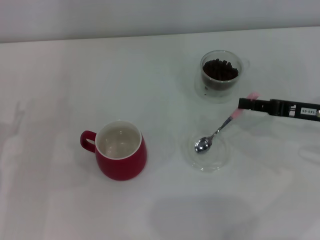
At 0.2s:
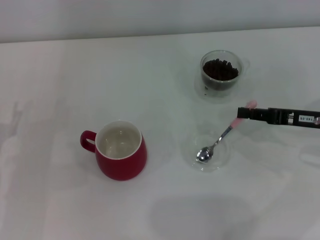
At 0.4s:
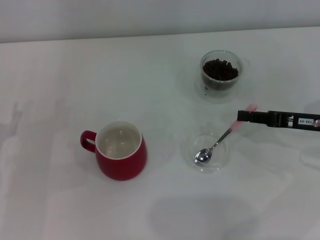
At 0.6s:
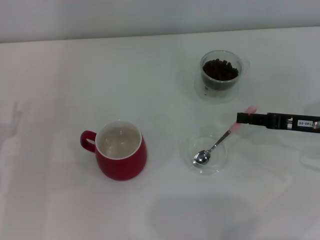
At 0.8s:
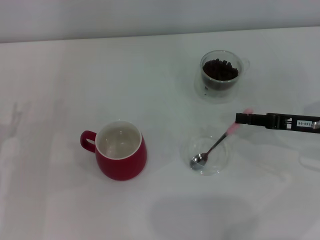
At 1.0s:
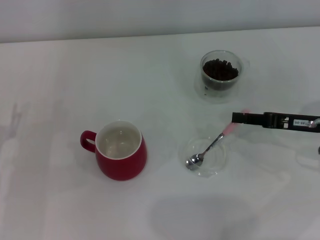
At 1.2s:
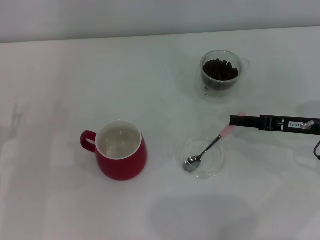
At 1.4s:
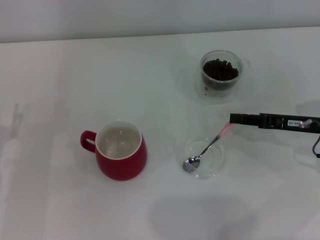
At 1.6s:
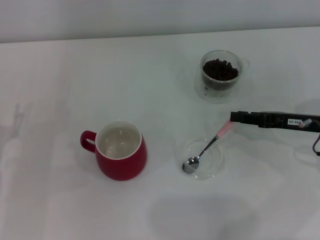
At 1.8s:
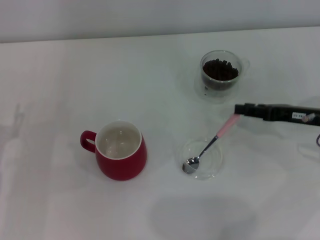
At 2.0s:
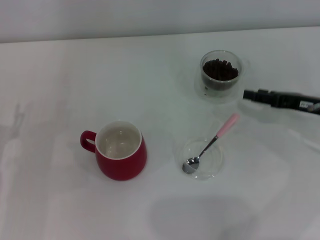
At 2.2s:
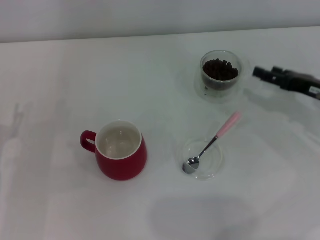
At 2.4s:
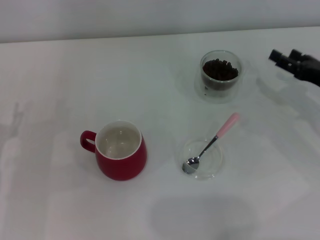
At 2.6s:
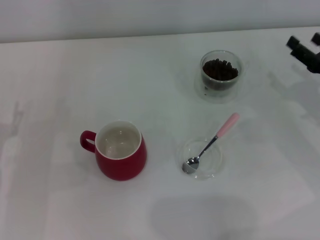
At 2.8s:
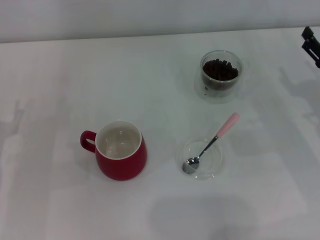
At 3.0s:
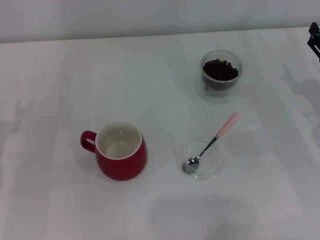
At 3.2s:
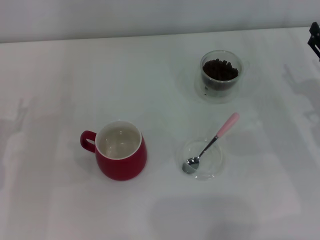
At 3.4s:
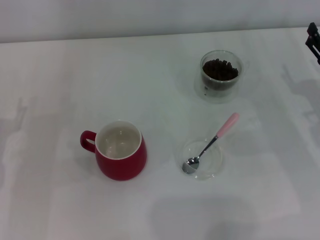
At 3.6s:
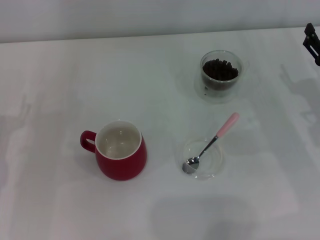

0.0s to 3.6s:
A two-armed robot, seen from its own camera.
Task of the whole recording: Use a pink spoon to take out the coffee beans from the glass and pour them into the red cup.
Step, 0.0s to 1.8s: Place the spoon back in its original place with the right gripper.
0.0s to 1.8s: The grippers move only a little.
1.8s to 3.6s: The right gripper opens its fingers.

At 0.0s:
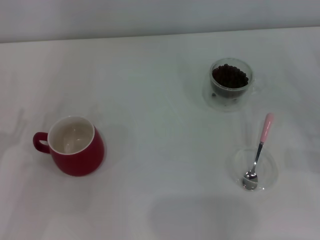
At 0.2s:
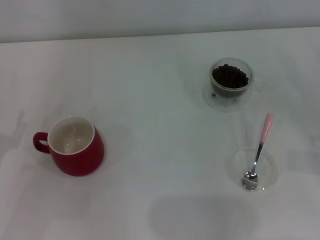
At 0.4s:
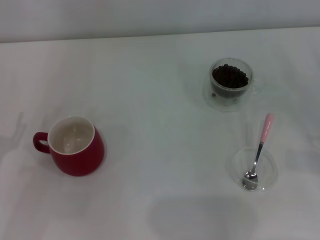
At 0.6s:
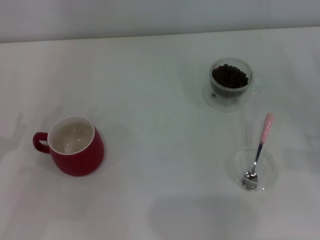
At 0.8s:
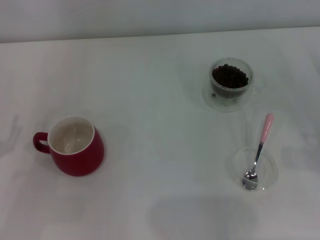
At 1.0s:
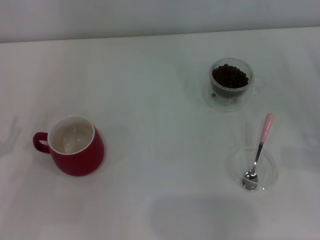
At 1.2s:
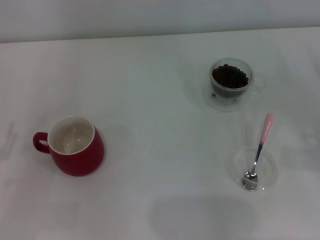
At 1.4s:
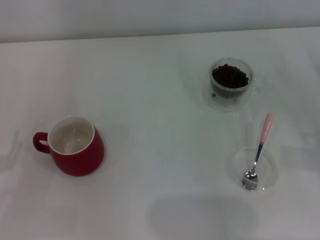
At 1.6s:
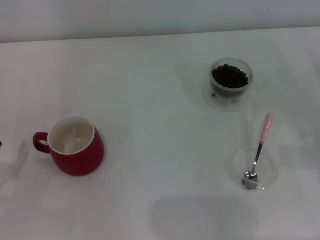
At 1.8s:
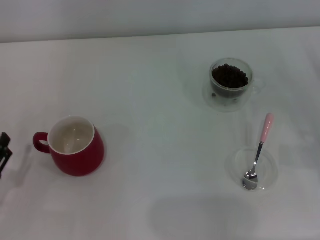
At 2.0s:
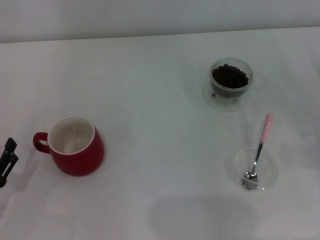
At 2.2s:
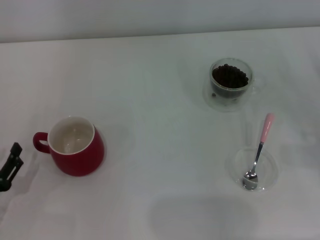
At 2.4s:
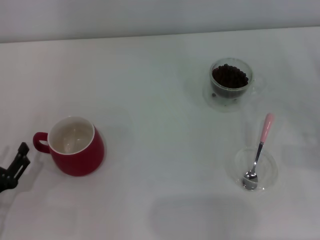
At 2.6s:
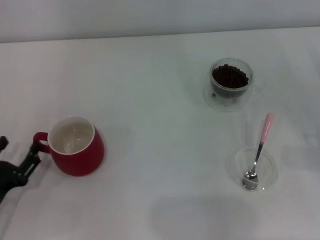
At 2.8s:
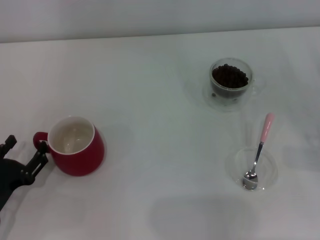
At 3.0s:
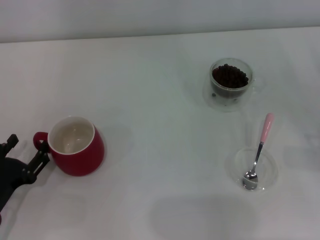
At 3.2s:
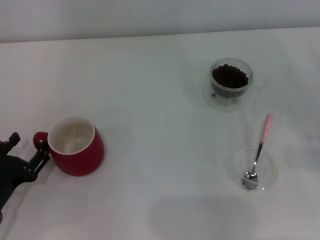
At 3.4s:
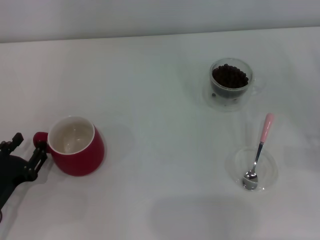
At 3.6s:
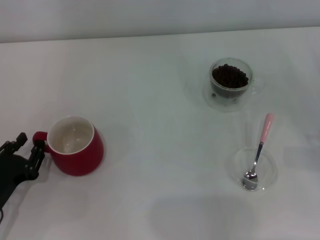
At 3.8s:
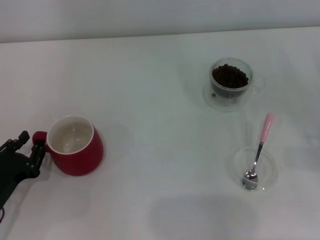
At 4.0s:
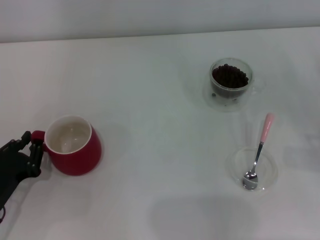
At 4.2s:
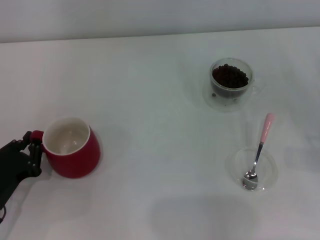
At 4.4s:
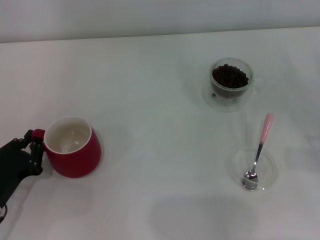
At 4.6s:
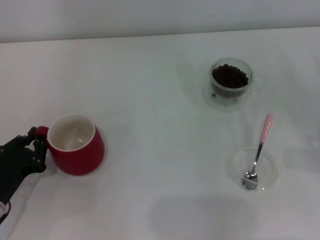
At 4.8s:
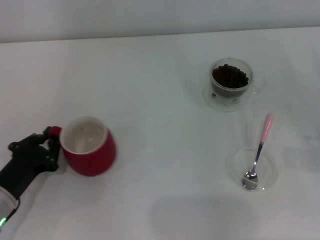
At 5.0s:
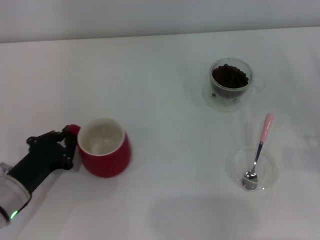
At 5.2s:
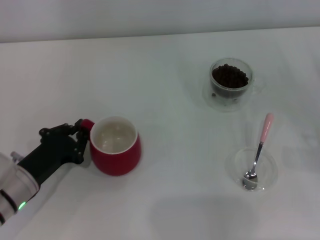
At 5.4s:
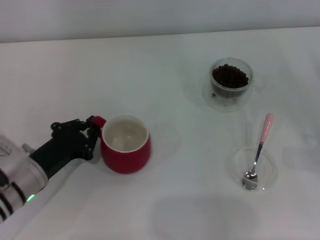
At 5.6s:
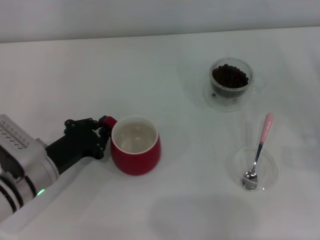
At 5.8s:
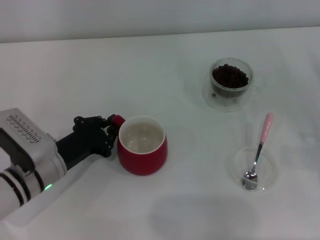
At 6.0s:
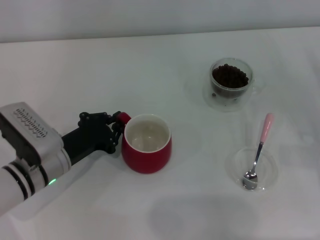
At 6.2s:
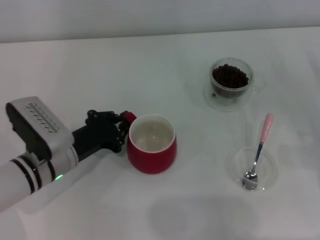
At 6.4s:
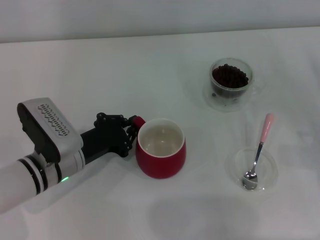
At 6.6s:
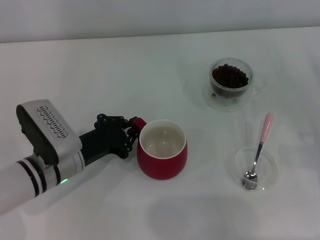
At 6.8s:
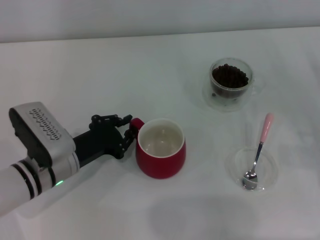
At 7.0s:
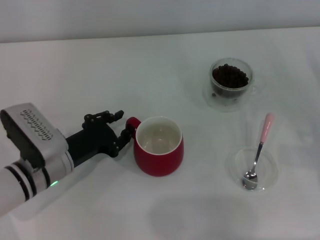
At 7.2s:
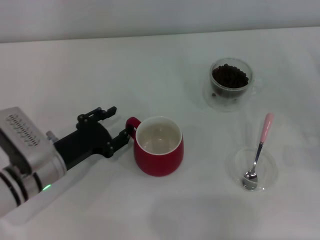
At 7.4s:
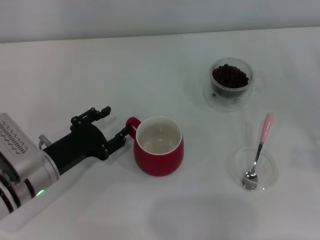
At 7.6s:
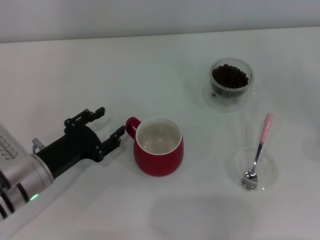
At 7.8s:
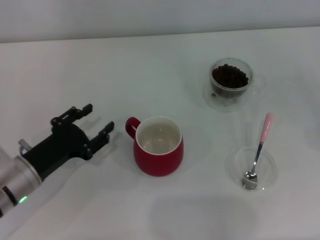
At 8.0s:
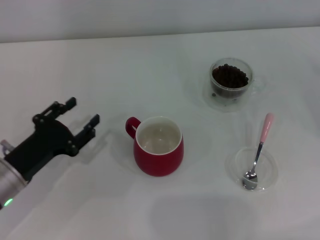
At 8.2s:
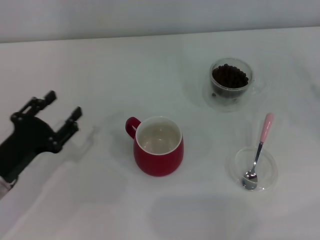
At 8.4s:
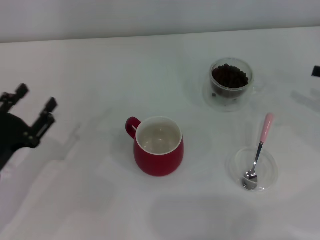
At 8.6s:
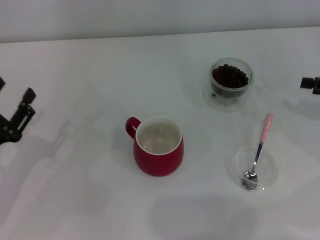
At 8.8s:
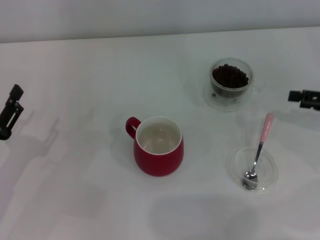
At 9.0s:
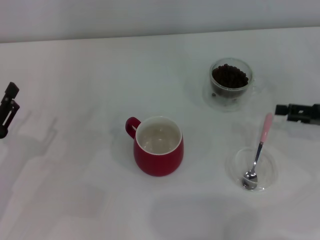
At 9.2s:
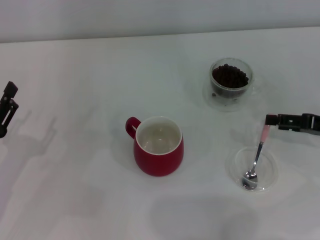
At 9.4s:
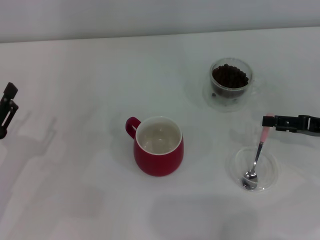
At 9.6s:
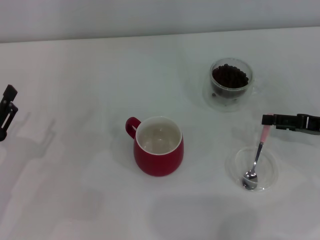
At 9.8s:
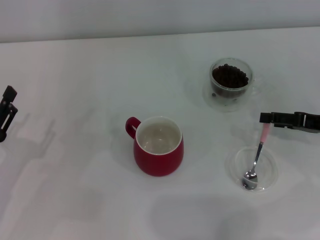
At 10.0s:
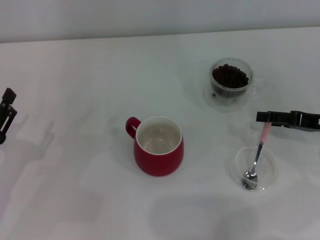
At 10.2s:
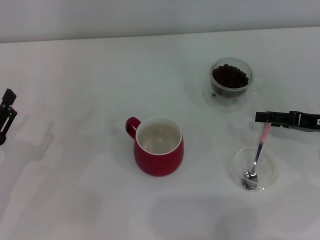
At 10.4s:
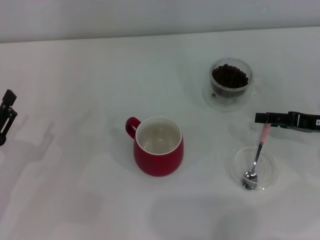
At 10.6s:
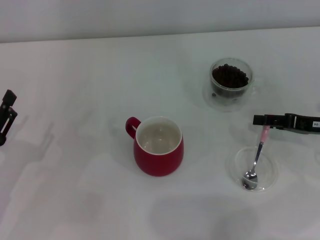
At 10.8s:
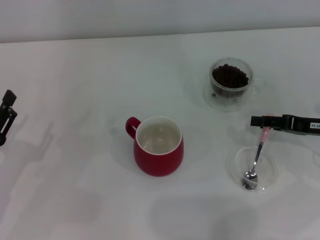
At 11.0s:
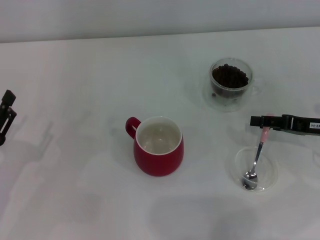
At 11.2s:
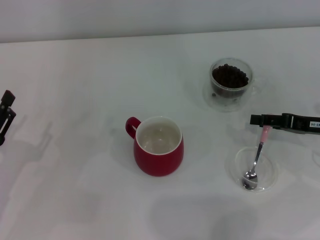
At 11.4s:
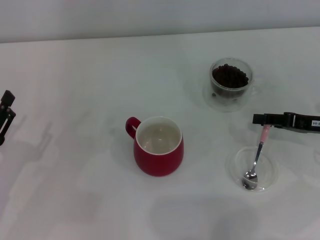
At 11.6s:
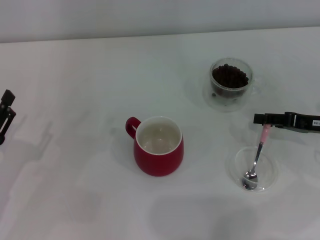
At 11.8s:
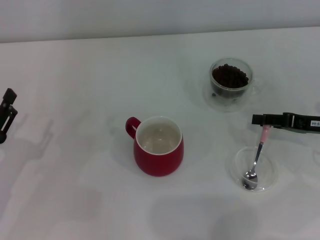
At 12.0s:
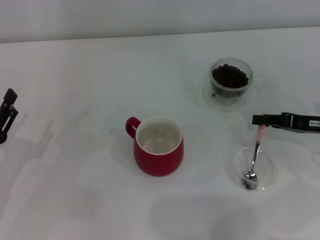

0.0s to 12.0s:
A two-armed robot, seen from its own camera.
Task of the whole recording: Use a pink spoon to take out the coffee beans from the glass and pour them into the red cup.
Step, 0.0s to 8.0s: Move the cup to the center of view with the left gripper.
1.6s to 3.0s: The grippers move only a little.
3.0s to 4.4s: The left gripper closes its fingers.
4.4s to 6.0s: The left gripper moves to the right and forward, some 10 cm.
6.0s to 7.6s: The left gripper opens its fingers.
7.6s to 9.0s: The right gripper shifts by roughly 5 cm, while the left gripper goes about 10 cm to the left.
9.0s to 10.4s: There are only small adjustments of the grippers.
10.4s to 12.0s: The right gripper closes.

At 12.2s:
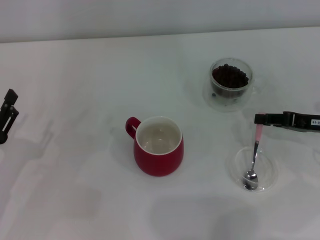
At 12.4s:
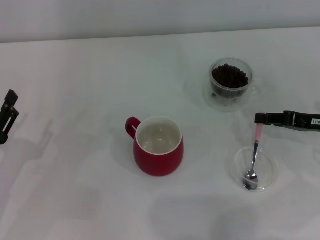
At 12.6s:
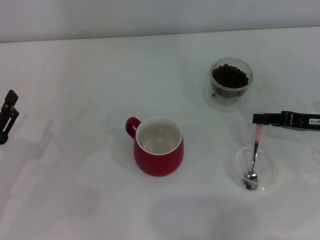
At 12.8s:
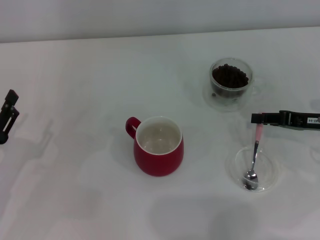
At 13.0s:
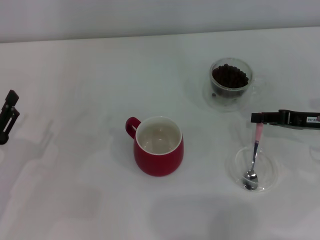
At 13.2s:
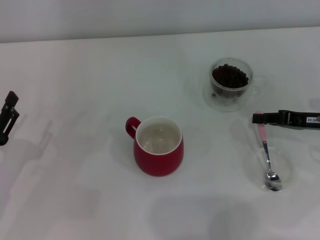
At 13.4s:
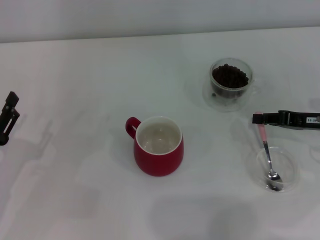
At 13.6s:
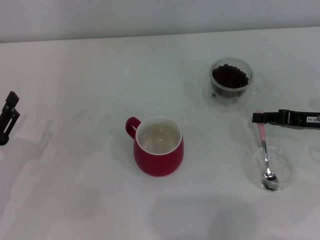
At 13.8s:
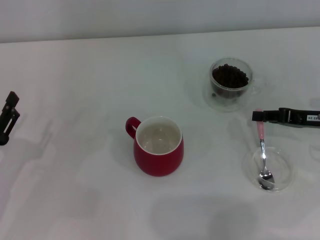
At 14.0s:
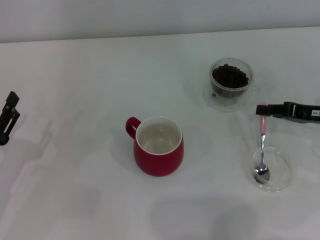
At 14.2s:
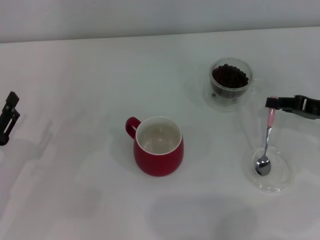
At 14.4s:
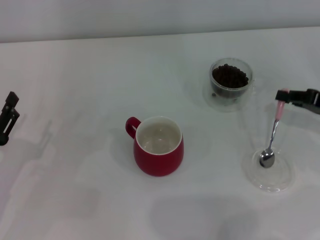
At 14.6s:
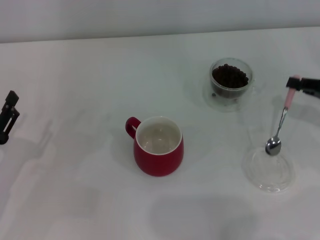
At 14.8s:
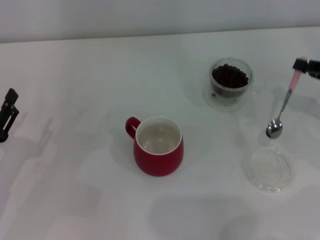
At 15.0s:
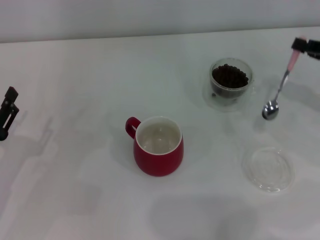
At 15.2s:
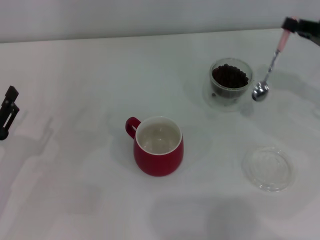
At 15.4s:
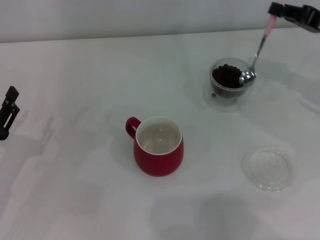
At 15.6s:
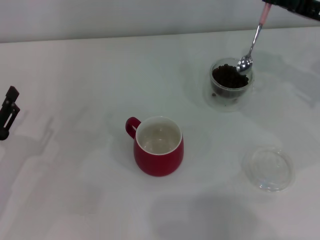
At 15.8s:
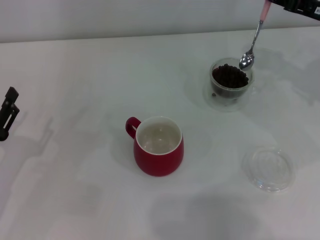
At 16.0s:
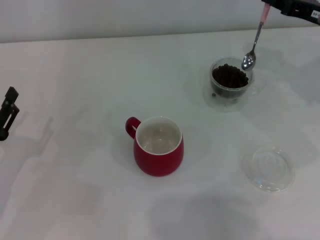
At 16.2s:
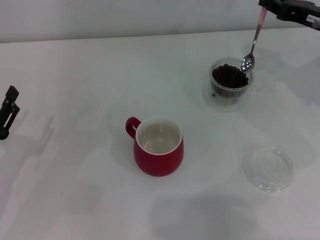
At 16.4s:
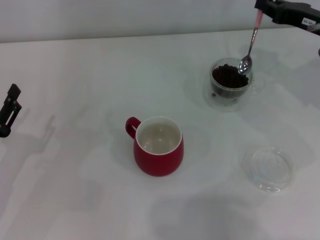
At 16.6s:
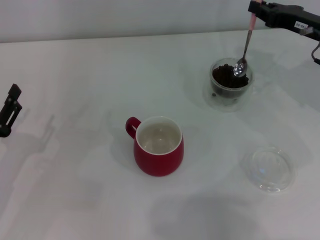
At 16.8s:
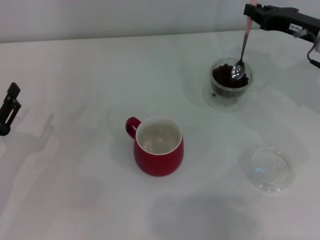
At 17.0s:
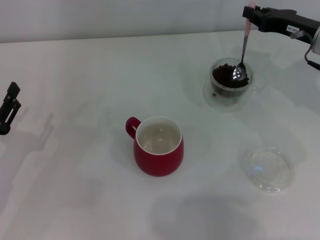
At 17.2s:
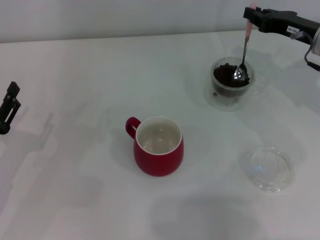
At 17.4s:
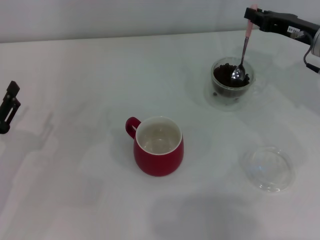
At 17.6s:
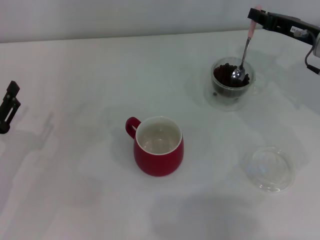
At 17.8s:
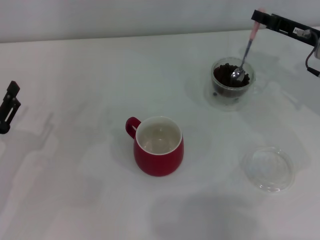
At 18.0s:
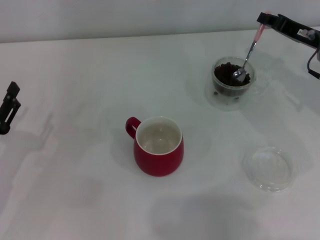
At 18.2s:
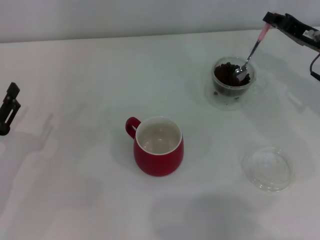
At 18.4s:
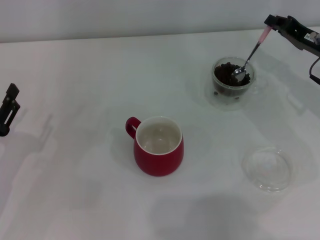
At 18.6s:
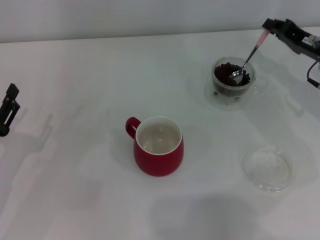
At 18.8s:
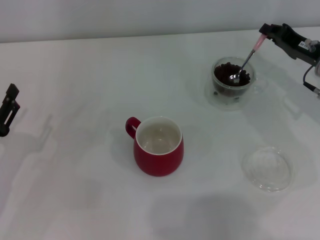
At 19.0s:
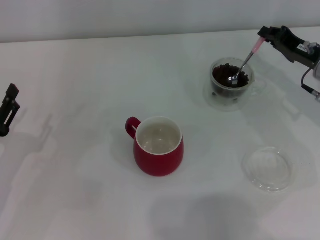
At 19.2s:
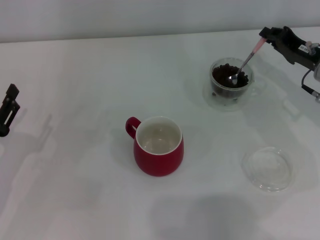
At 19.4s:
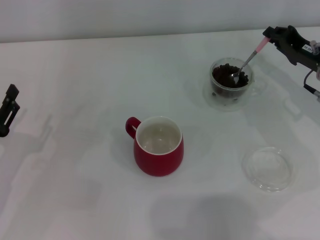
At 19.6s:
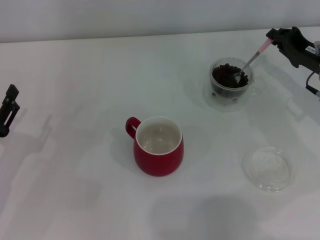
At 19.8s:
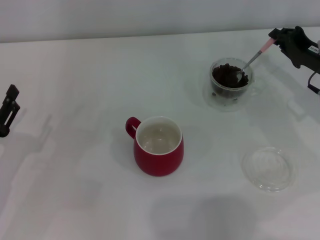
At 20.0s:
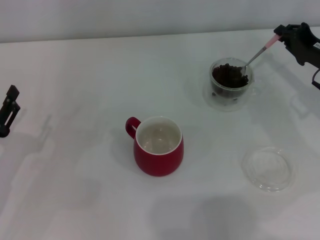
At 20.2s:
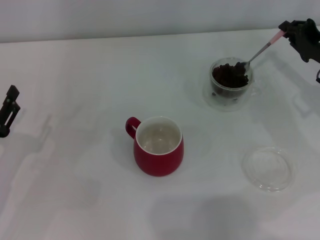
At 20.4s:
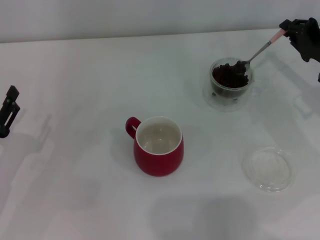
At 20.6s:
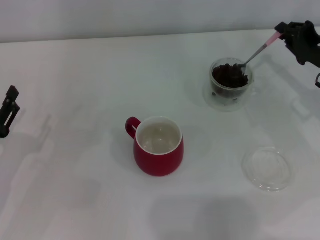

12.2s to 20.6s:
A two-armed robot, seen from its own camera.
Task of the whole recording: Use a pink spoon to take out the coffee beans from the glass and pour them into the red cup.
Step, 12.2s to 14.6s: Pick up the spoon with the right gripper.
12.2s to 13.6s: The two grippers keep their place.
13.6s to 15.0s: The right gripper shifts about 5 cm upward.
15.0s to 16.4s: The right gripper travels forward and to the left by roughly 10 cm.
16.4s to 17.8s: The grippers stay close to where they were, moving slightly.
19.2s to 20.6s: The grippers stay close to where they were, moving slightly.
